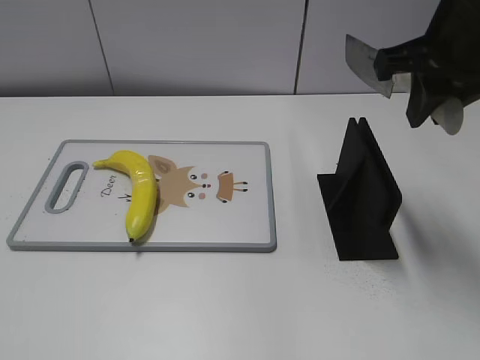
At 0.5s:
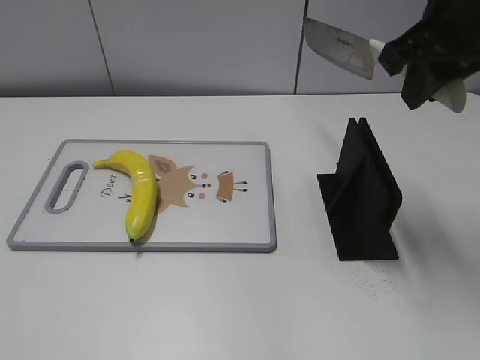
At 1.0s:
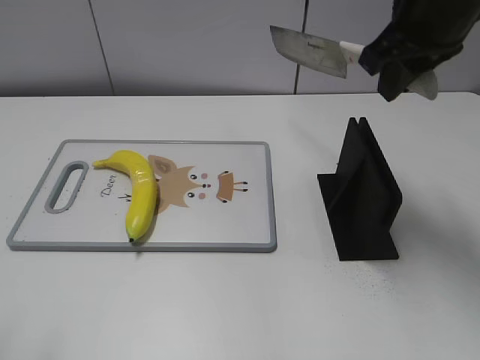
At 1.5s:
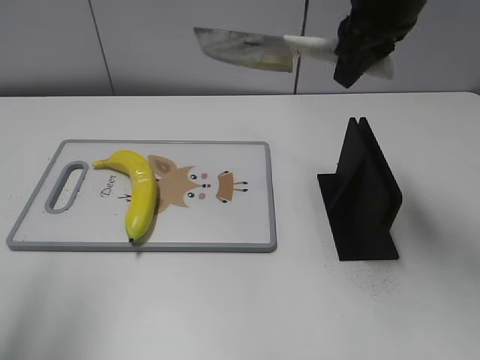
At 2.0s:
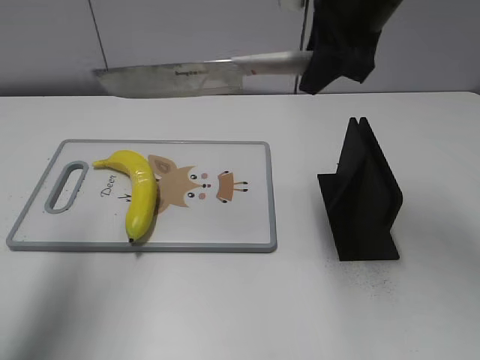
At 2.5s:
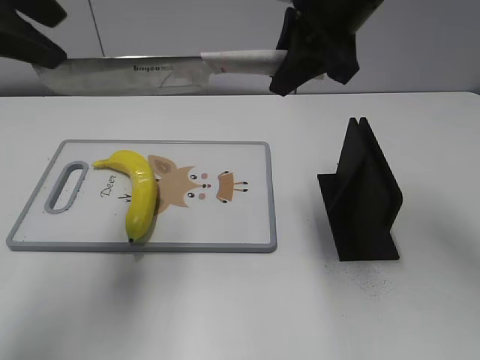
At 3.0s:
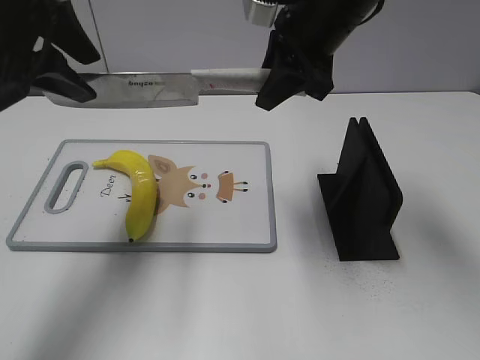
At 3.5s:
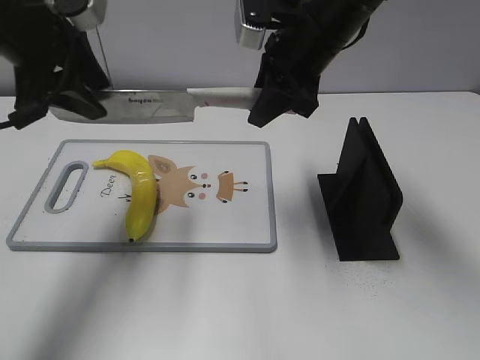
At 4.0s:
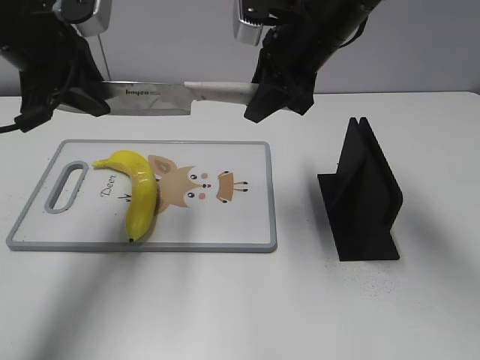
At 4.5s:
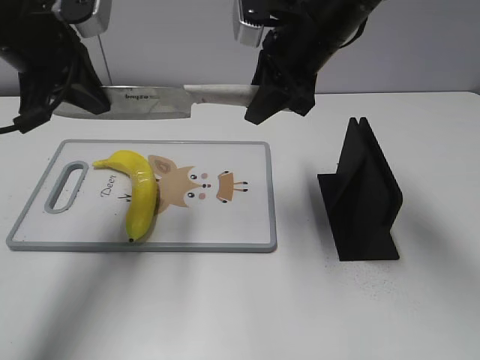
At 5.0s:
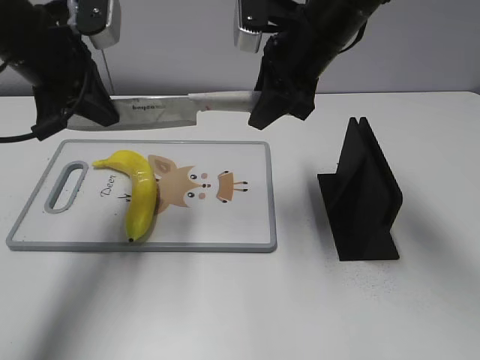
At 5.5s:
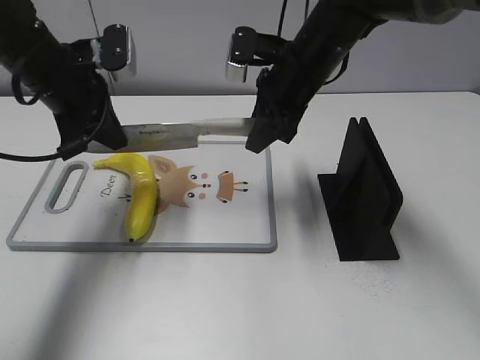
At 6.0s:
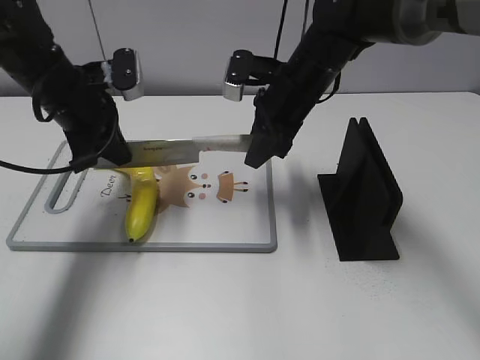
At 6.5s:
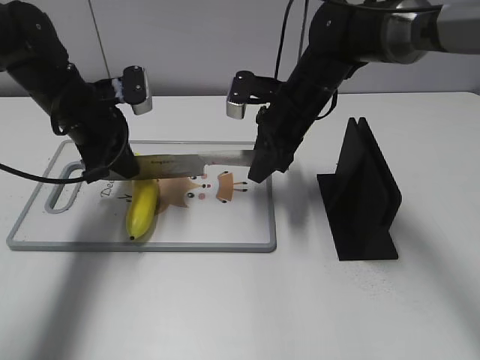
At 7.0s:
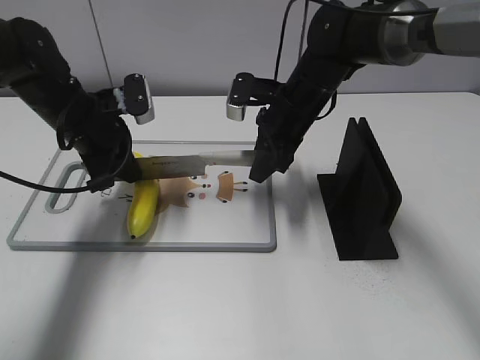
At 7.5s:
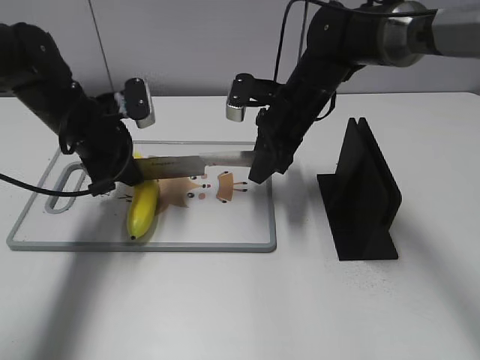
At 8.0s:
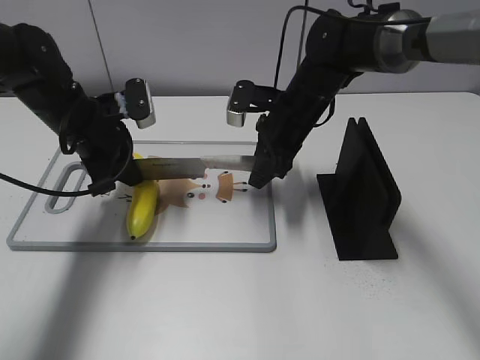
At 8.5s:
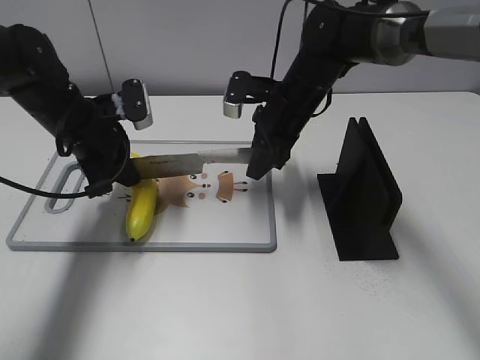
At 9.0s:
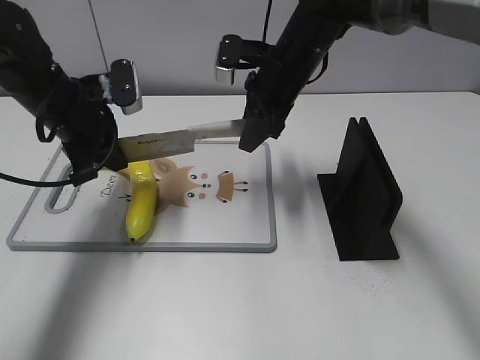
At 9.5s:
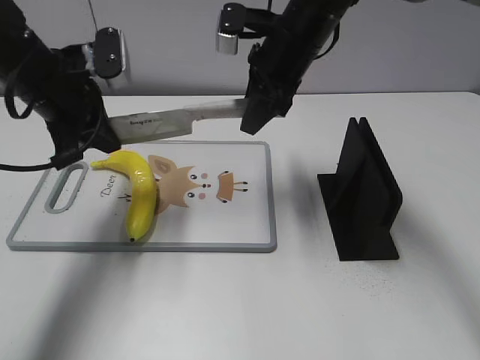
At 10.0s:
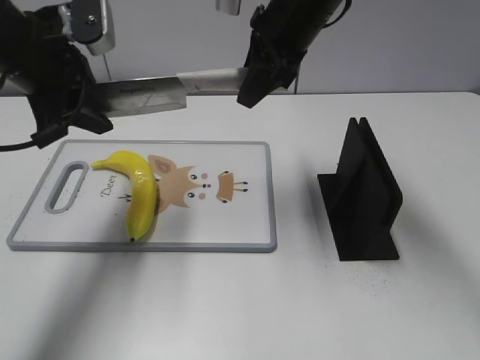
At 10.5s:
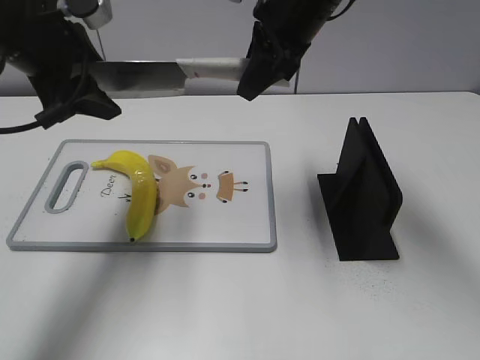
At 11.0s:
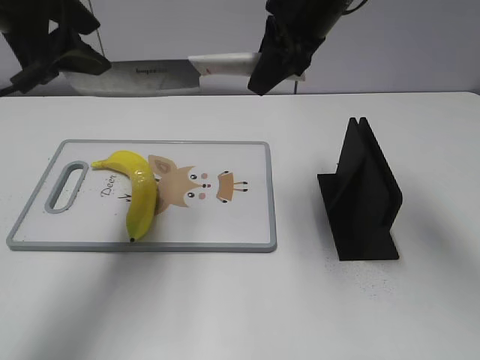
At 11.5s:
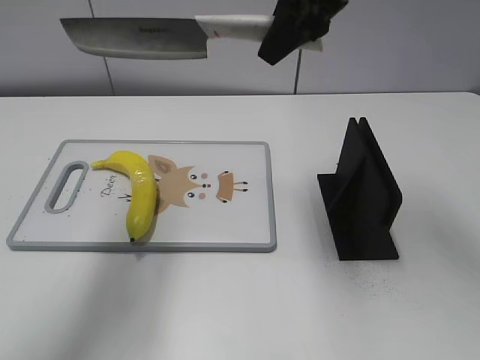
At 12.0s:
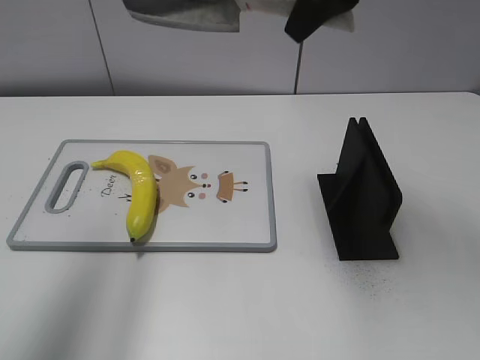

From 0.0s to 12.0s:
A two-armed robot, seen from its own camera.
Task of the whole recording: cut plastic banana.
Step, from 0.0s to 7.5s: Lift the knife with your right hand.
Step, from 8.0s to 12.0s: Cut the banana with your right hand.
From 0.0s to 2.0s: The left gripper moves forward and upward, roughly 25 cm. The right gripper is displaced forward and to the left by roughly 10 cm.
From 2.0s to 4.0s: The left gripper is displaced downward, forward and to the right by roughly 15 cm, and closes; the right gripper goes about 5 cm downward.
From 4.0s to 6.0s: The two grippers go some 10 cm downward. The left gripper closes its fingers.
From 6.0s to 8.0s: The left gripper moves downward, roughly 5 cm.
From 8.0s to 10.0s: The grippers both shift upward by about 15 cm. The left gripper opens.
From 10.0s to 12.0s: The right gripper goes some 10 cm upward and backward; the left gripper is displaced upward and backward by about 20 cm, and opens up.

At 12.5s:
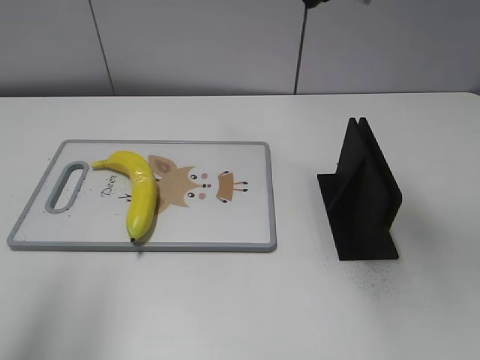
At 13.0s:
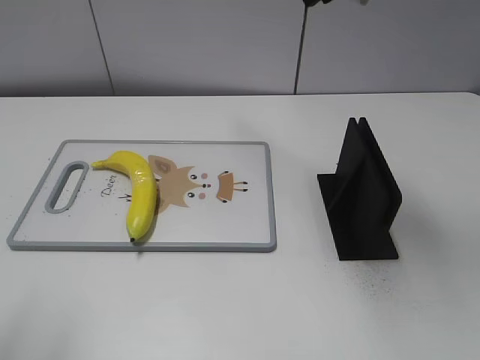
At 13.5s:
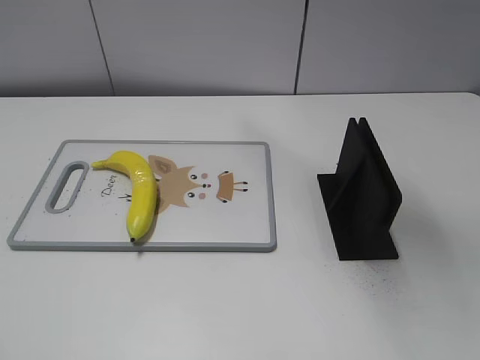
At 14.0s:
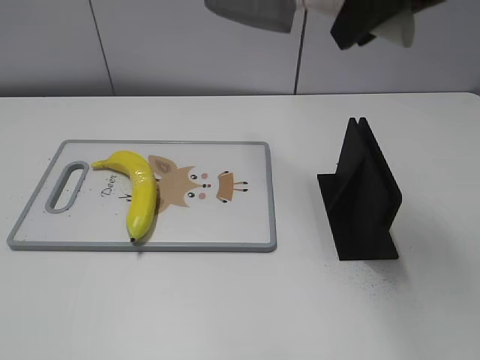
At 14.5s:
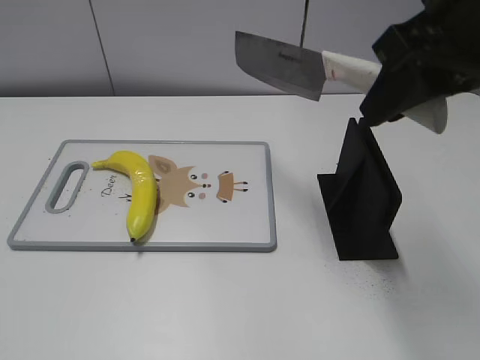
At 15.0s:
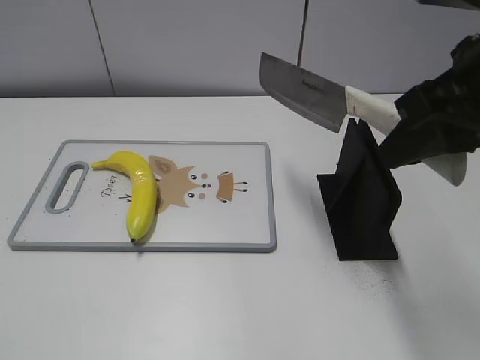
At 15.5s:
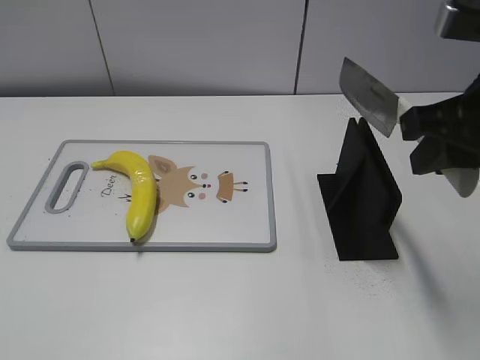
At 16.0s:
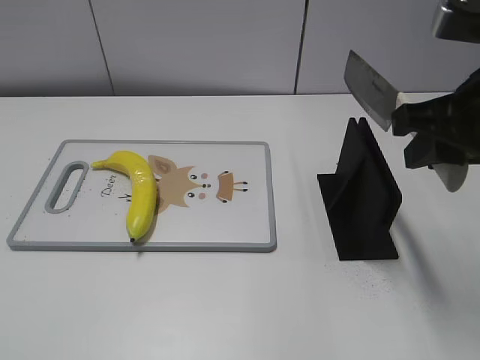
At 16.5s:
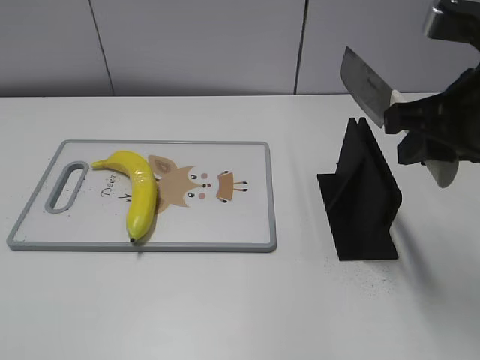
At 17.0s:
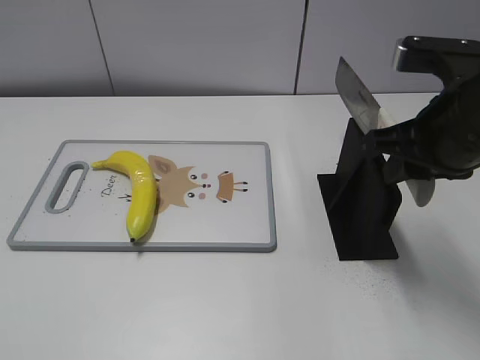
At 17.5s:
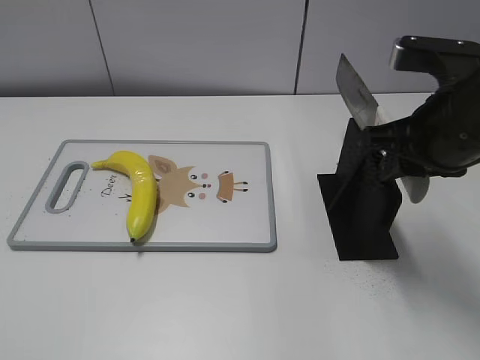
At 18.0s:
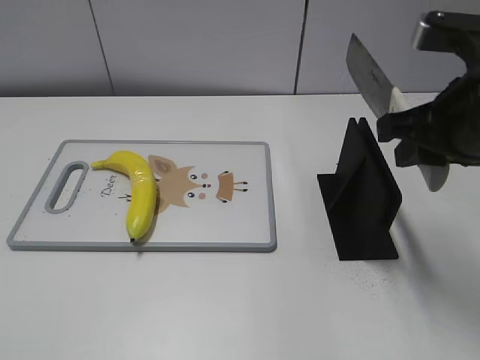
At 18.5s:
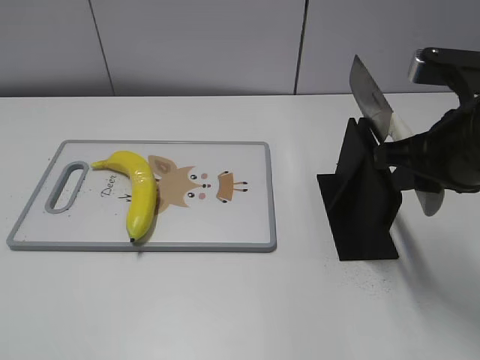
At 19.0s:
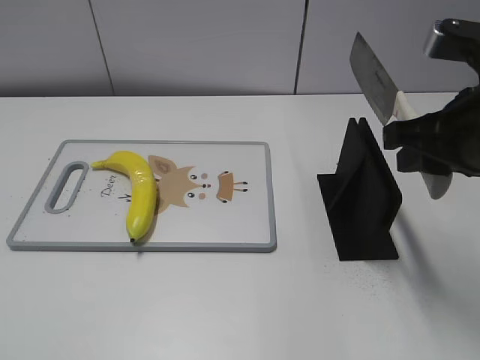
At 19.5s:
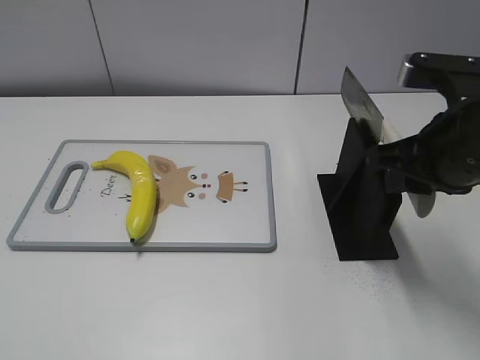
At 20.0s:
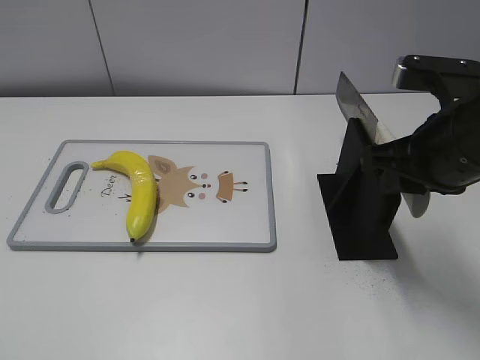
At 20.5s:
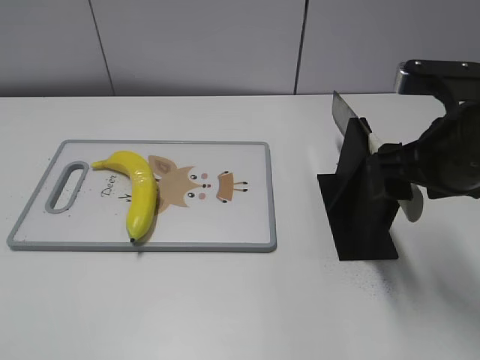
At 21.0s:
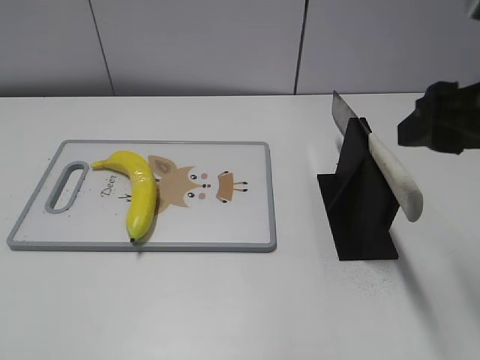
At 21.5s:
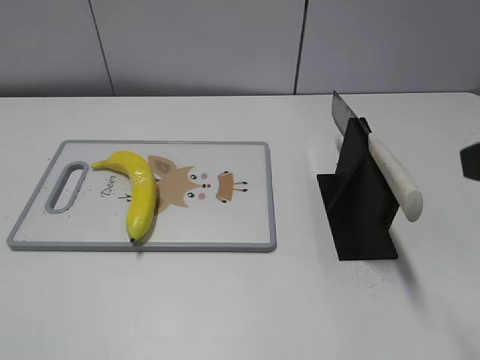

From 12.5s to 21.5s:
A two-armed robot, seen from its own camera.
Task of the whole recording: cut plastic banana.
Step, from 12.5s to 14.0s: Lift the knife with your right hand.
From 12.5s to 14.5s: The left gripper heads backward and downward, covering roughly 25 cm. The right gripper heads backward and downward, covering about 10 cm.
From 14.5s to 17.0s: The right gripper travels downward by about 10 cm.
From 17.0s to 19.5s: The grippers move only a little.
From 19.5s to 21.5s: The right gripper is displaced backward and upward by roughly 15 cm, and opens its fingers.

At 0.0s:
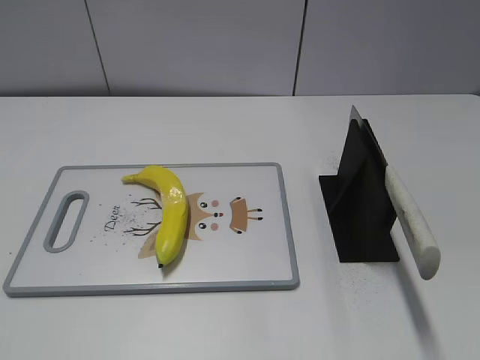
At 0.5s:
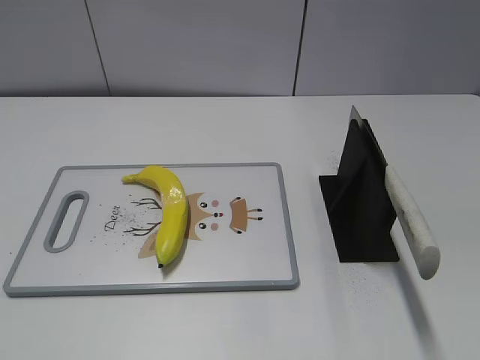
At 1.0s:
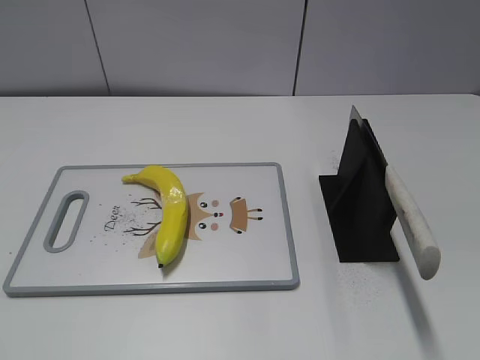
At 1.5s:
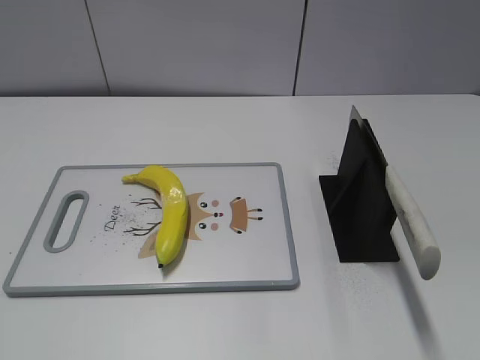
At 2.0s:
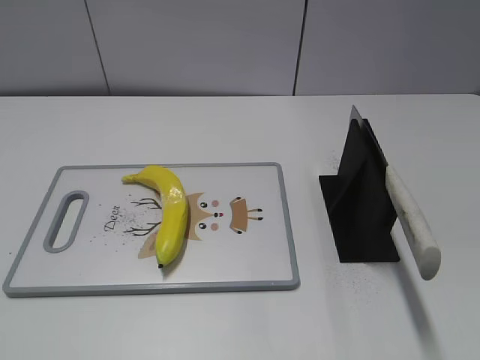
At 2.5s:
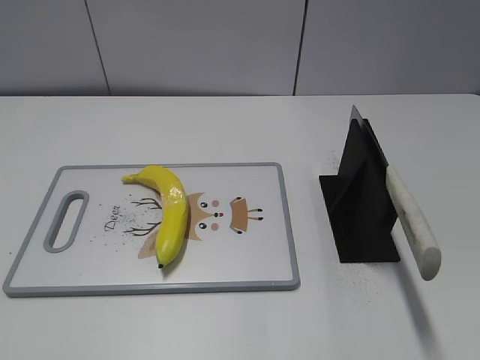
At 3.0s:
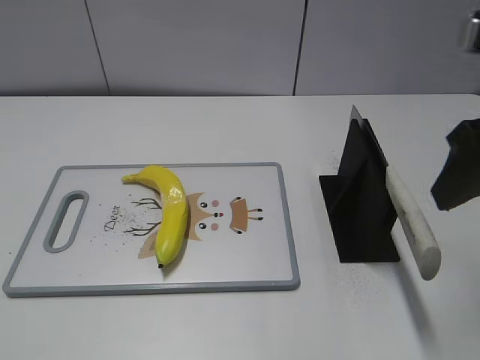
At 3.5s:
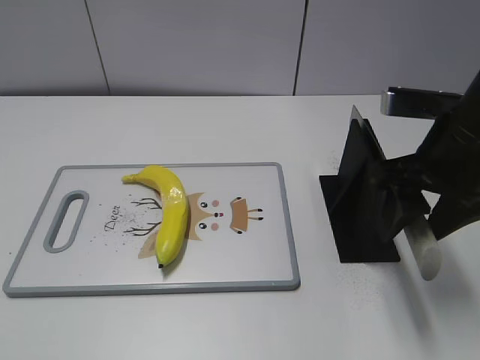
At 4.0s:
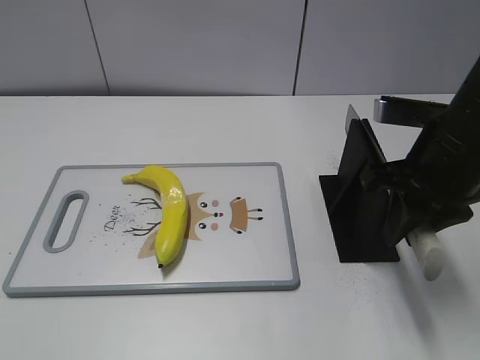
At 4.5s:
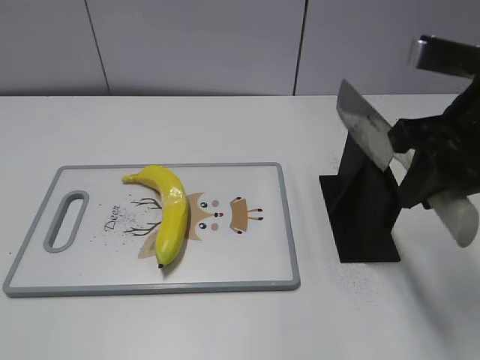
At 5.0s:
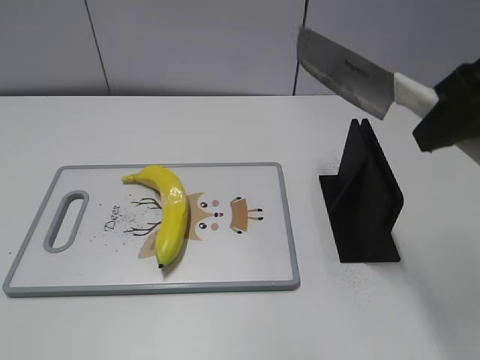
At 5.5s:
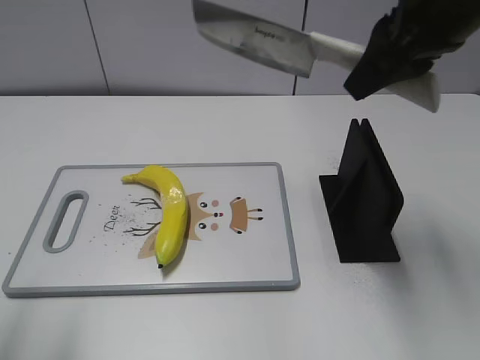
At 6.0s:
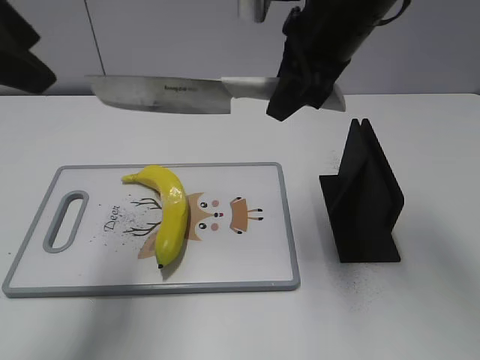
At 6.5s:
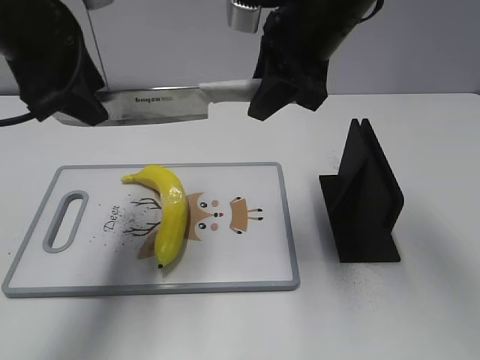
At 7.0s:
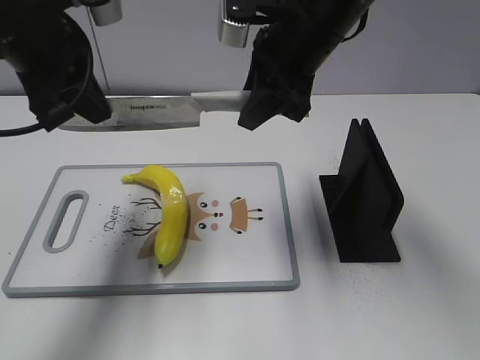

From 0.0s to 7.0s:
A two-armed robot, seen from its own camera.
Task of the whole recording: cut plastic banana.
Step, from 0.0s to 4.5s: Grab the knife handle with your right hand.
From 2.0s to 3.5s: The right gripper travels forward and downward by approximately 25 cm.
From 3.5s to 5.0s: The right gripper moves upward, approximately 10 cm, and closes up.
From 5.0s to 7.0s: The left gripper is displaced forward by roughly 30 cm, and closes up, while the right gripper goes approximately 20 cm forward, to the left and downward.
